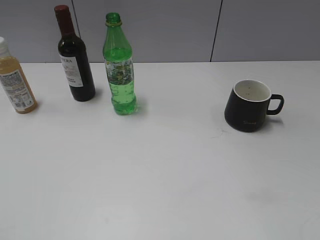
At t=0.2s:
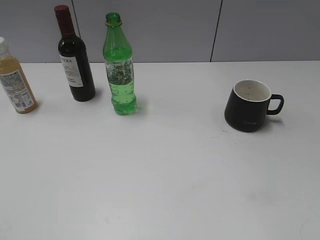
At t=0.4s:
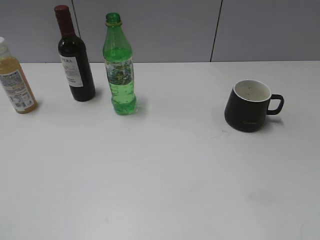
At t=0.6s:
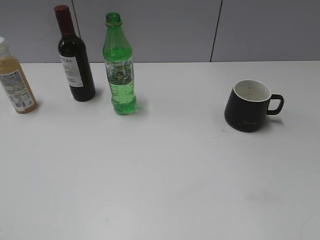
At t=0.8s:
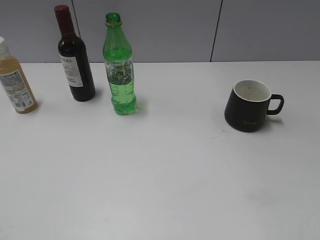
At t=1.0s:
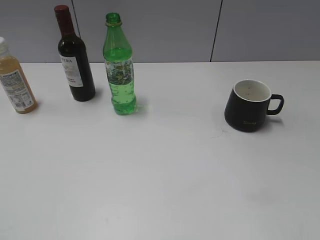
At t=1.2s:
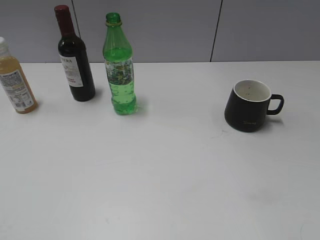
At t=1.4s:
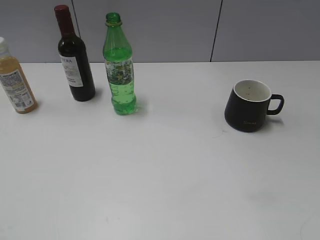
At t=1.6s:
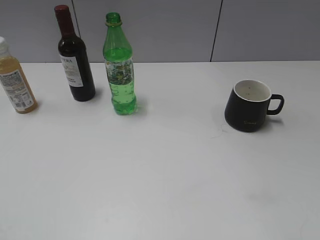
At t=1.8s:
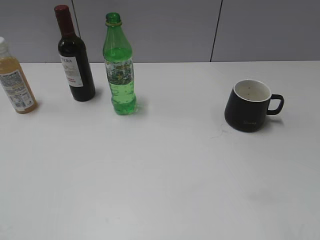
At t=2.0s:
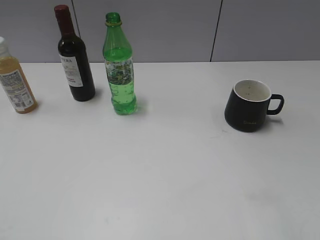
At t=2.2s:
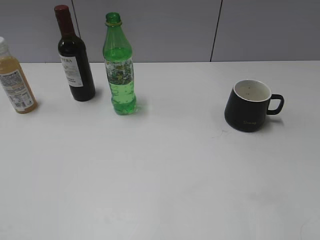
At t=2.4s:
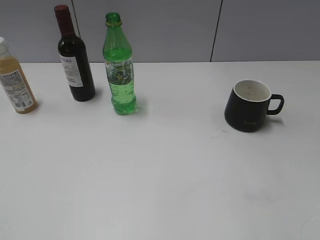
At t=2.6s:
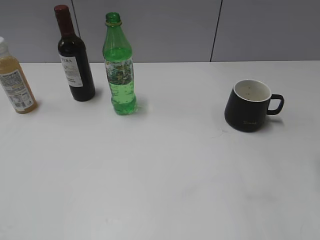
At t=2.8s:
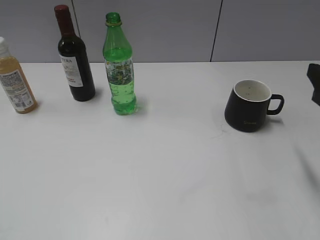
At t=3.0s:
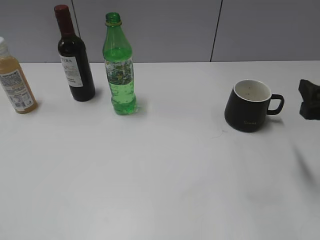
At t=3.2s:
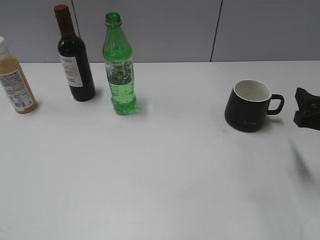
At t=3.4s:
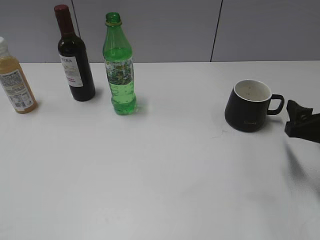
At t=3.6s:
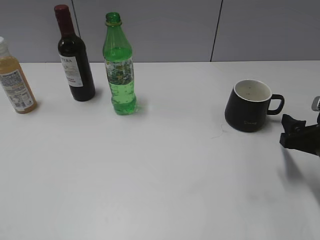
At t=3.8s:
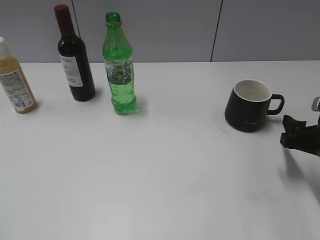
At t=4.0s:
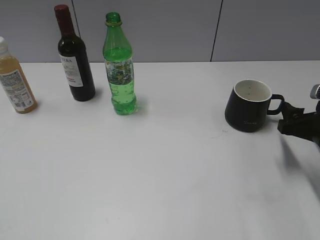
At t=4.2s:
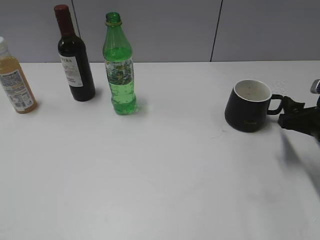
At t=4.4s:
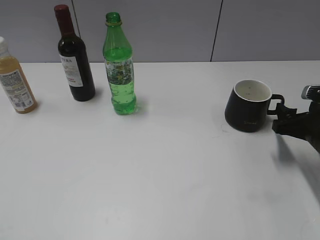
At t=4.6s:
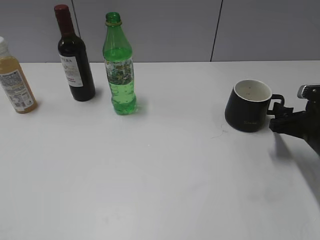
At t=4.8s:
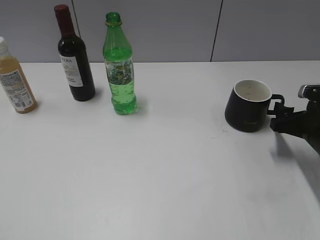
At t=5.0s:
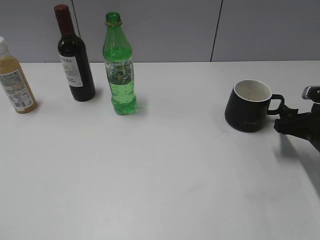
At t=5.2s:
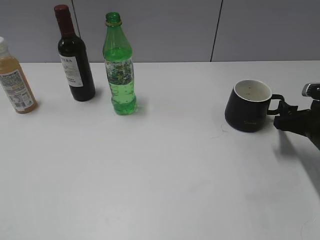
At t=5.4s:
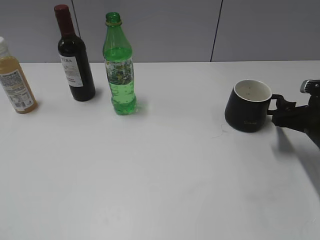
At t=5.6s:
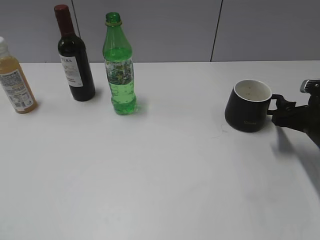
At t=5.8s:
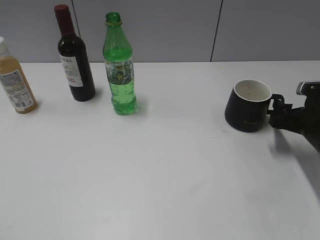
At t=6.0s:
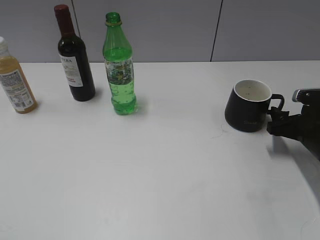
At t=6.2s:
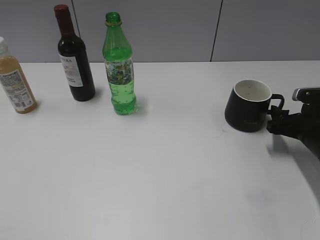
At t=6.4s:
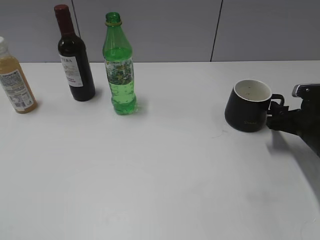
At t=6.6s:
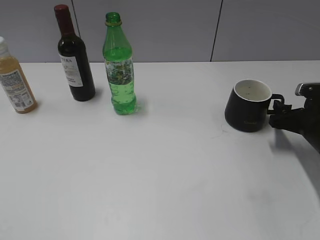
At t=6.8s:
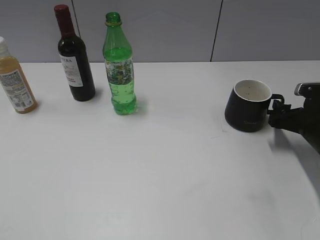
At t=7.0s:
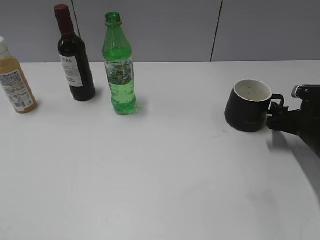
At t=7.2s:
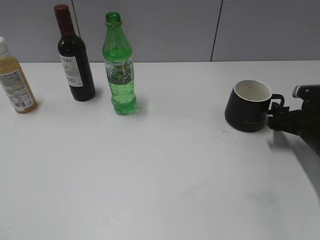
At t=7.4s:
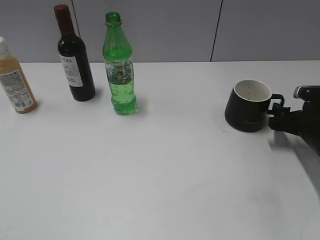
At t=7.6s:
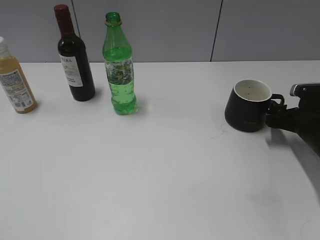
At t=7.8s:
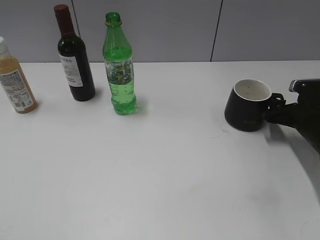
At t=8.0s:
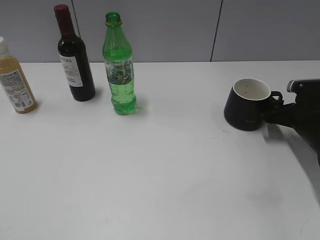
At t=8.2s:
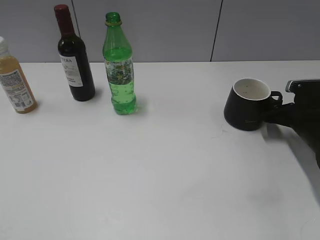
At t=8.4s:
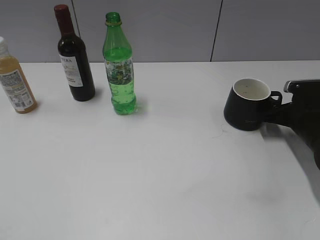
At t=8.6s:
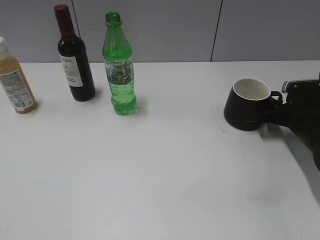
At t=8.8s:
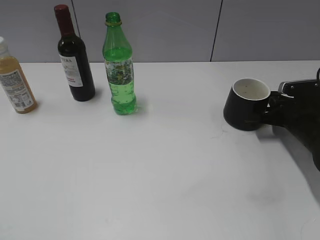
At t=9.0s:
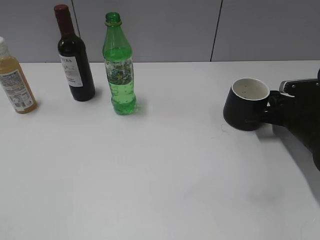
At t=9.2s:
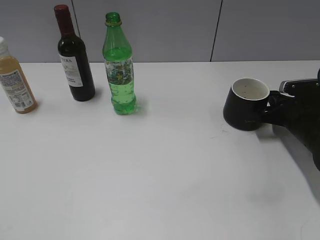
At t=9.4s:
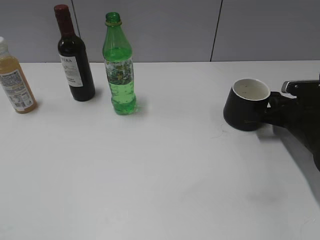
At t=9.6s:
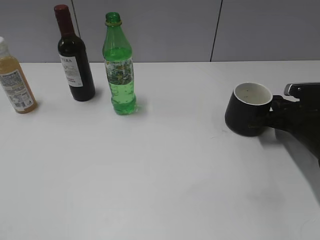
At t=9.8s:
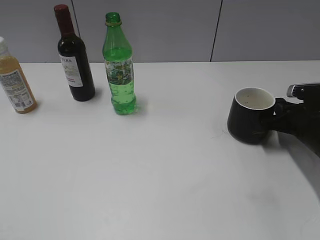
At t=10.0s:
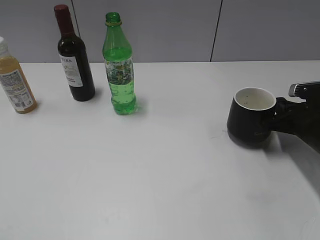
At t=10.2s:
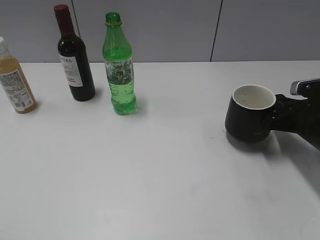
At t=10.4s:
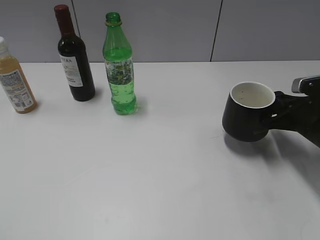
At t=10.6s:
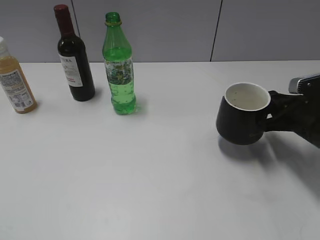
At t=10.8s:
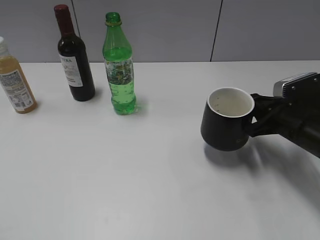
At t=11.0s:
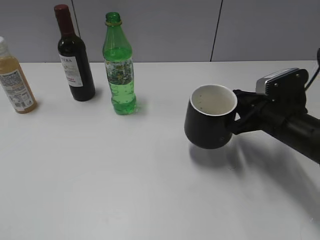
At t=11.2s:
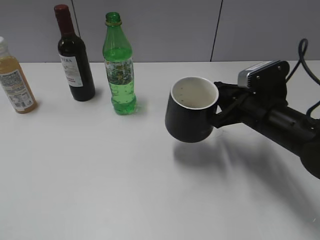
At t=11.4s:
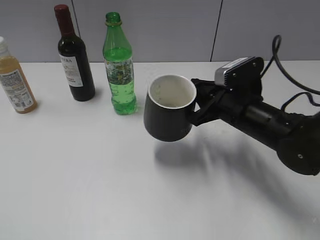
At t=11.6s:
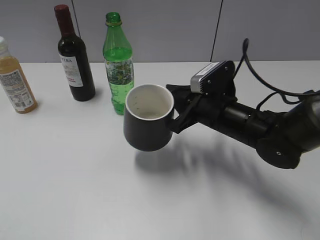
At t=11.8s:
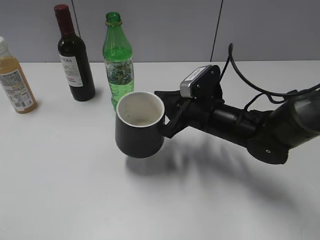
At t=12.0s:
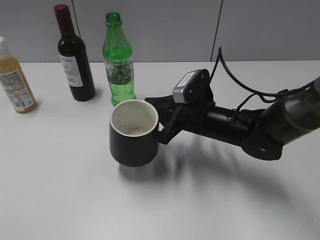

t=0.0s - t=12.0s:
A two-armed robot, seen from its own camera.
Step, t=1.0s - t=9.2s: Grasp the black cup with right gripper.
t=1.6s - t=3.0s: The right gripper moves forward and downward, about 25 cm.
t=3.0s - t=4.4s: The right gripper shifts about 10 cm downward.
t=4.4s - t=7.6s: The grippers stay close to where they were, moving slightly.
t=7.6s - t=9.0s: The right gripper closes its fingers.
t=9.0s - t=10.4s: The right gripper moves some 5 cm.
t=10.4s - t=12.0s: The right gripper heads to the left, covering some 20 cm.

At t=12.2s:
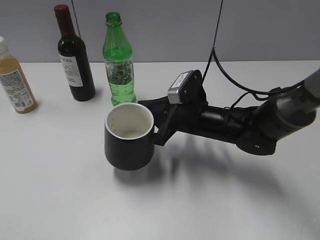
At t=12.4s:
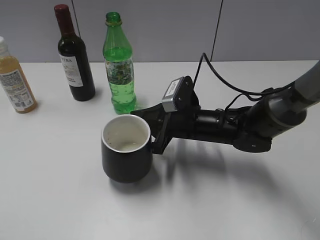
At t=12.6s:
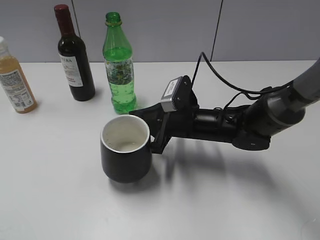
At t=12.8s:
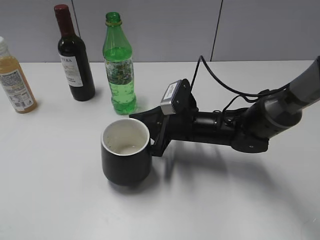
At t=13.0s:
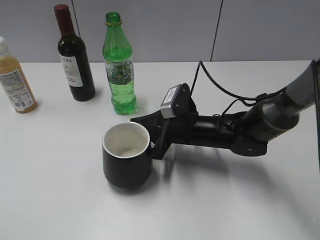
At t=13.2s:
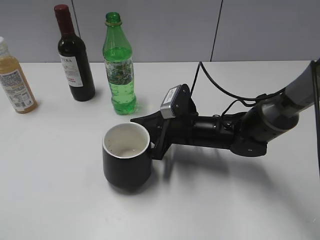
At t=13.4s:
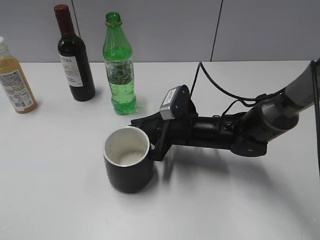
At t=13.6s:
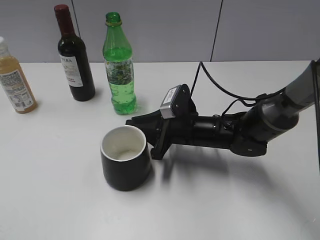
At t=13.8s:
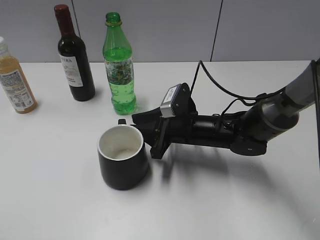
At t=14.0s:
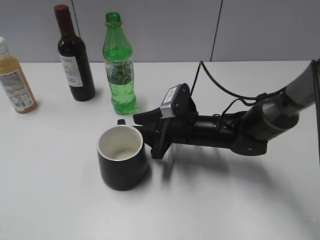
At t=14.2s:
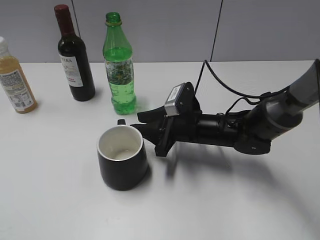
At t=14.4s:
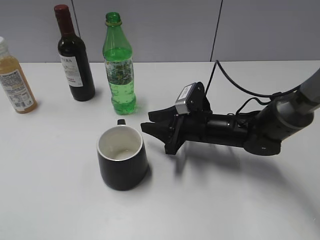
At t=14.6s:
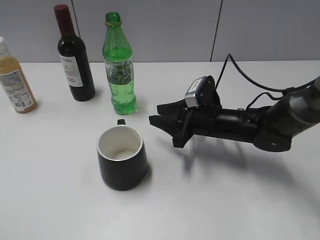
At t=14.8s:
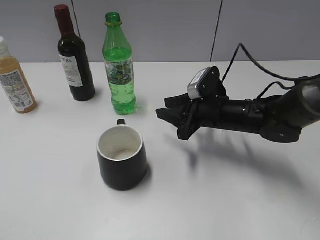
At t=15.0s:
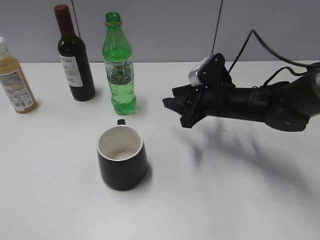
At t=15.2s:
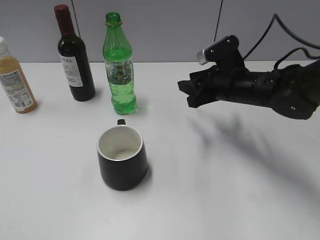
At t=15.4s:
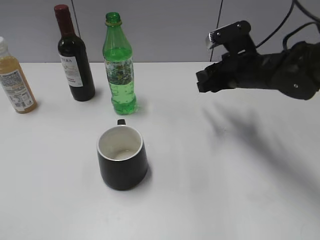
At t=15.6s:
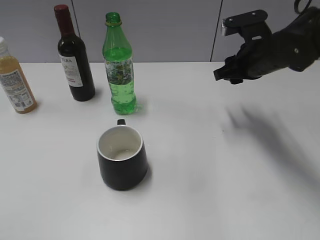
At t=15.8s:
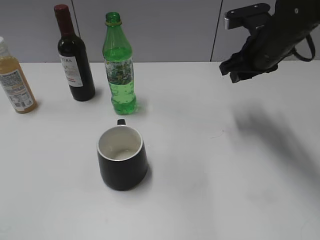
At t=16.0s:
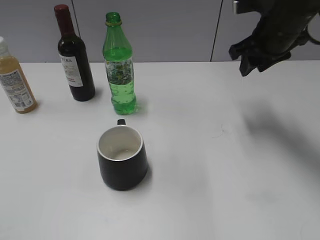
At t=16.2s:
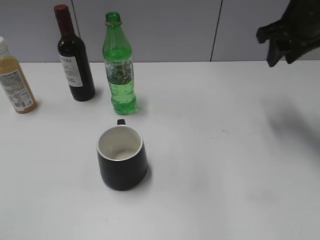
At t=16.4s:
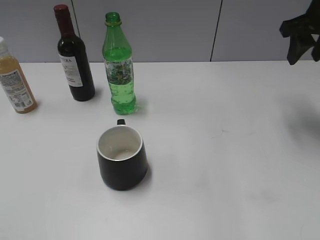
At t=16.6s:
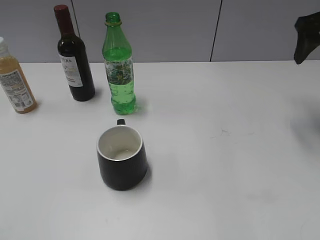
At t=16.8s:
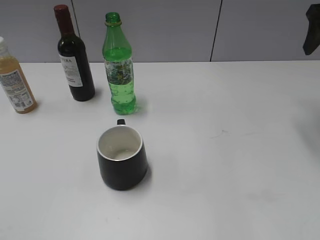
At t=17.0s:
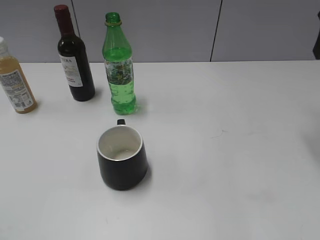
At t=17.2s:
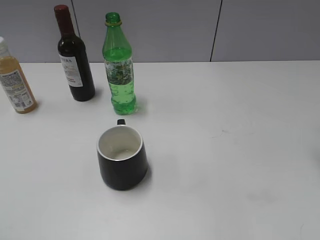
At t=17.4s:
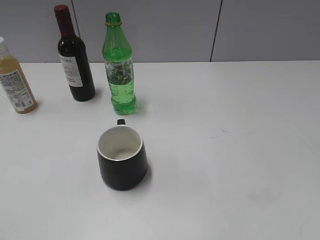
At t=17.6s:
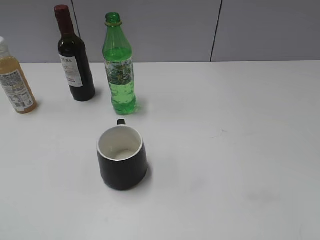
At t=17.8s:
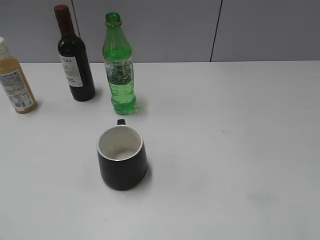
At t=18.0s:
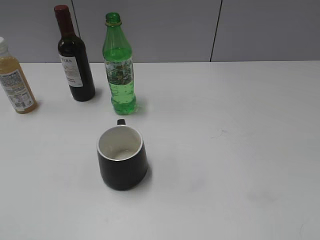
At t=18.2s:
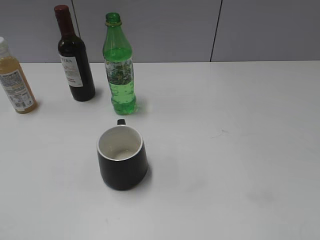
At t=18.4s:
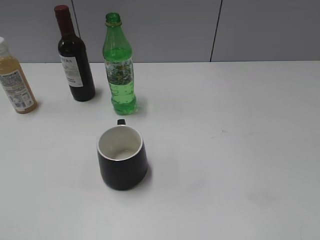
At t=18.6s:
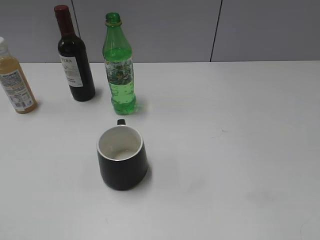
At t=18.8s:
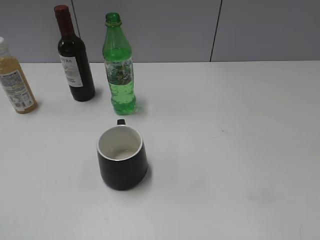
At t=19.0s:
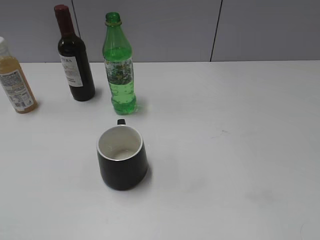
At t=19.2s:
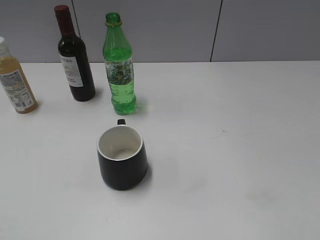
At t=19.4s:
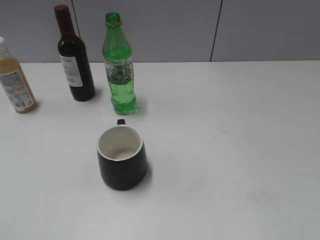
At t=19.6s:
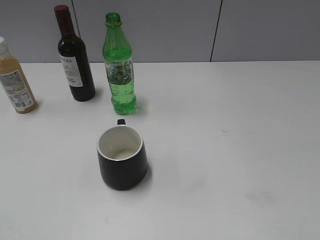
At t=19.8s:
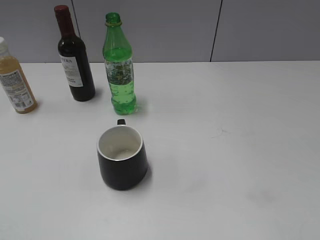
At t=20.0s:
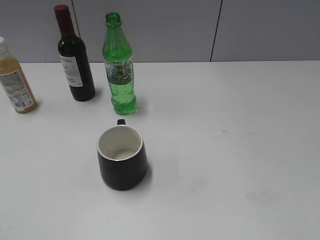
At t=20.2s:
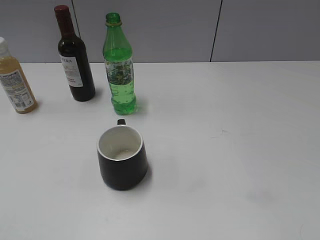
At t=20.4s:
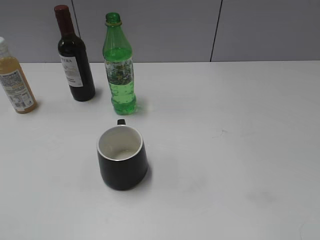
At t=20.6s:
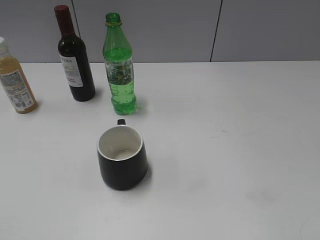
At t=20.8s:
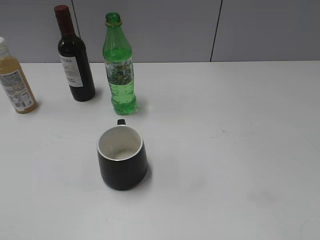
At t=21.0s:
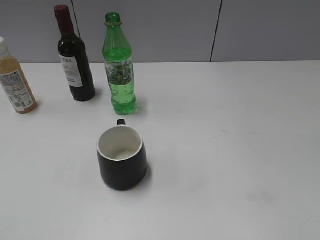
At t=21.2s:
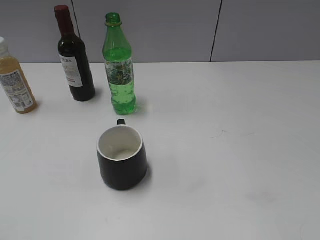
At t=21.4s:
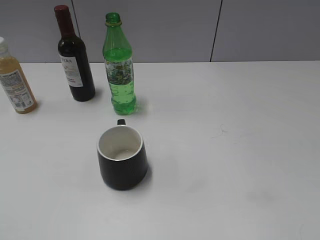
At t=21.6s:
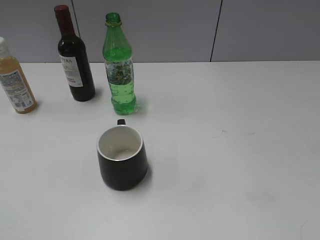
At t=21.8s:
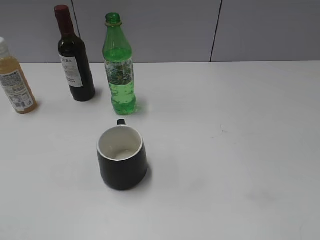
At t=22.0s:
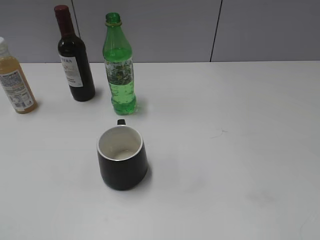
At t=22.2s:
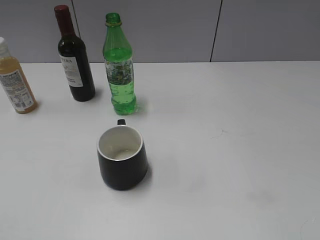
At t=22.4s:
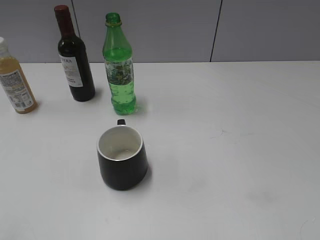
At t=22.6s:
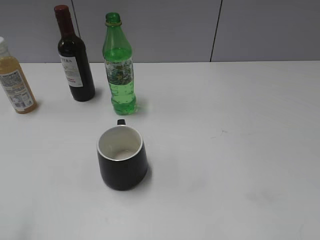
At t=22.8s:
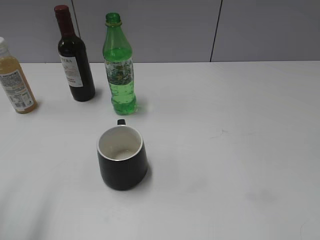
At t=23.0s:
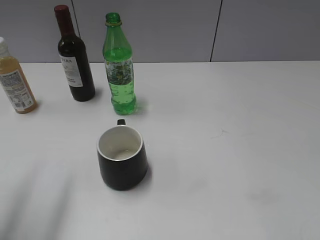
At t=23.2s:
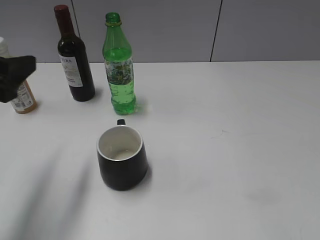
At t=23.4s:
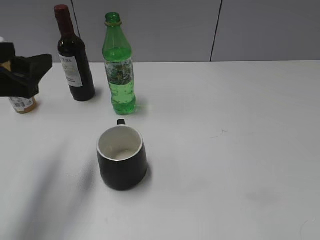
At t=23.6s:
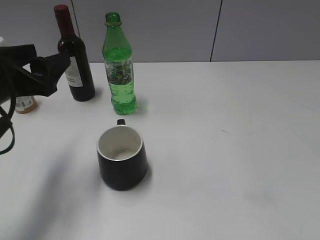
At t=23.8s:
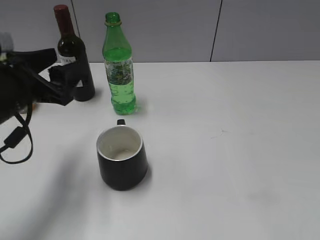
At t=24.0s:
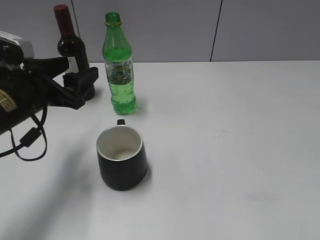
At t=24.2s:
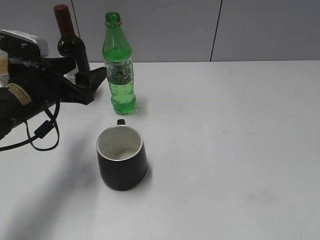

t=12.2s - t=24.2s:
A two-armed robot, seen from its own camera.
t=12.2s - t=13.8s: The right gripper opens its fingers.
t=13.8s - t=15.2s: The right gripper moves upward and to the right, about 10 cm.
t=15.2s - t=16.6s: The right gripper shifts approximately 20 cm upward and to the right, and opens its fingers.
t=16.6s - t=18.2s: The right gripper heads backward, covering some 35 cm.
t=22.6s - t=24.2s: The left gripper goes some 30 cm forward, downward and to the right.
